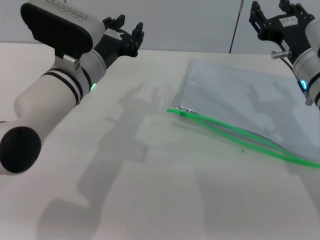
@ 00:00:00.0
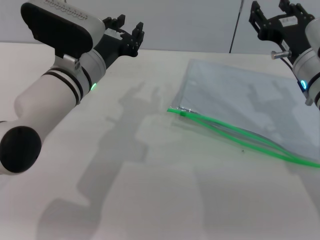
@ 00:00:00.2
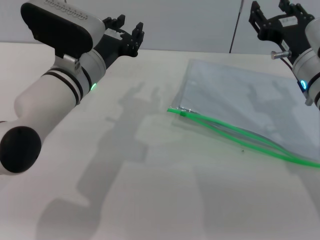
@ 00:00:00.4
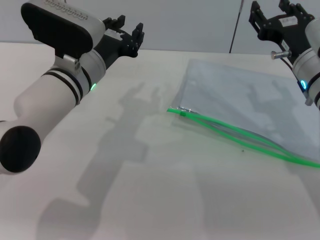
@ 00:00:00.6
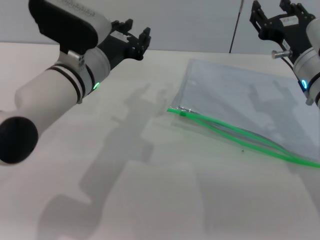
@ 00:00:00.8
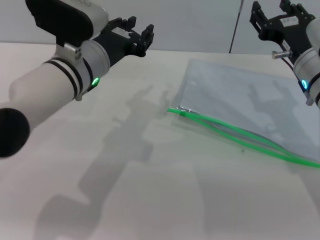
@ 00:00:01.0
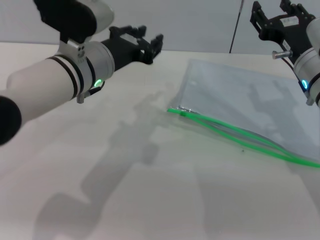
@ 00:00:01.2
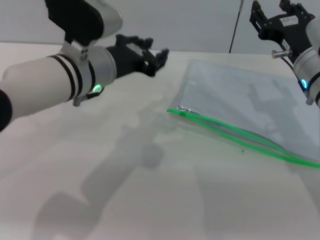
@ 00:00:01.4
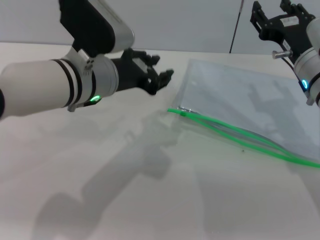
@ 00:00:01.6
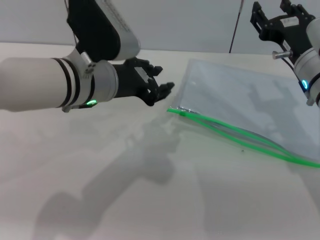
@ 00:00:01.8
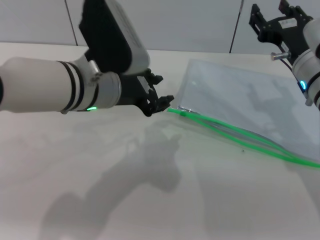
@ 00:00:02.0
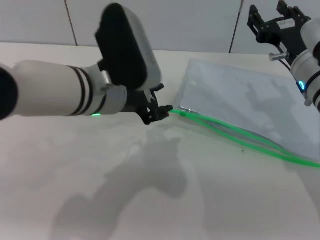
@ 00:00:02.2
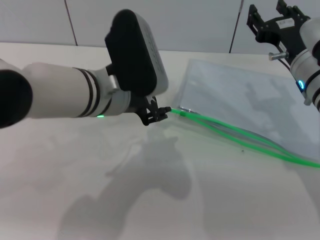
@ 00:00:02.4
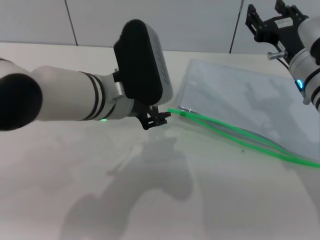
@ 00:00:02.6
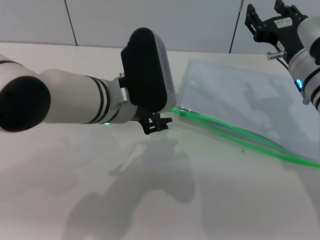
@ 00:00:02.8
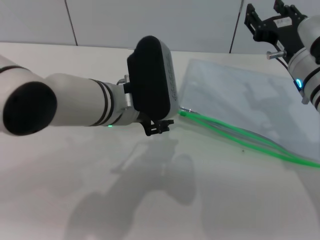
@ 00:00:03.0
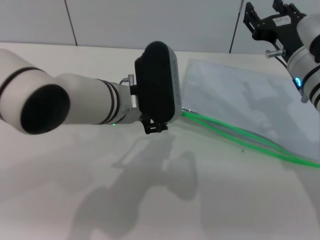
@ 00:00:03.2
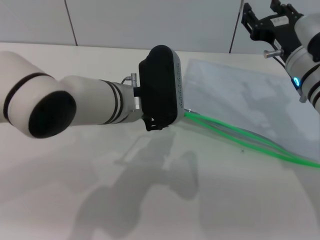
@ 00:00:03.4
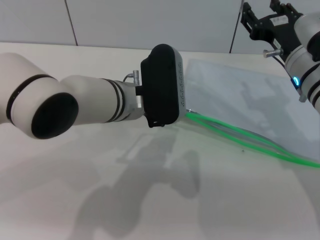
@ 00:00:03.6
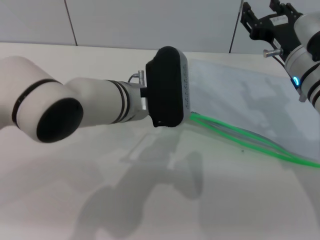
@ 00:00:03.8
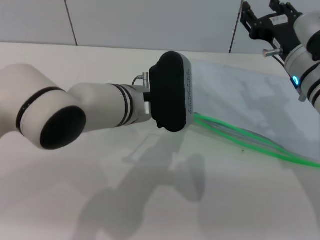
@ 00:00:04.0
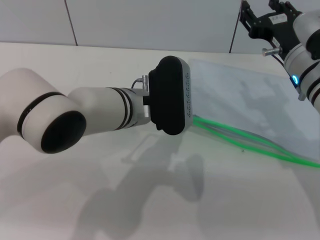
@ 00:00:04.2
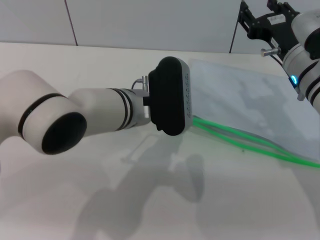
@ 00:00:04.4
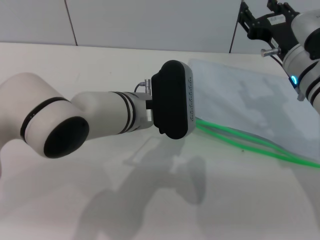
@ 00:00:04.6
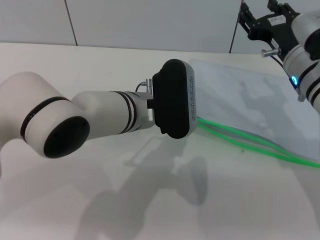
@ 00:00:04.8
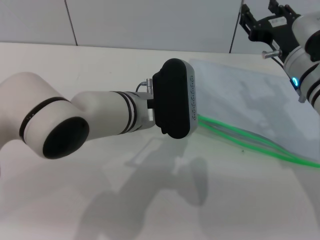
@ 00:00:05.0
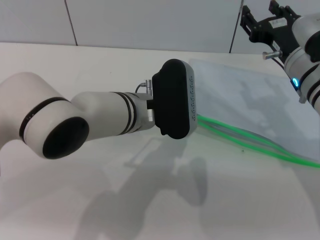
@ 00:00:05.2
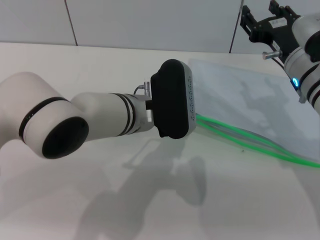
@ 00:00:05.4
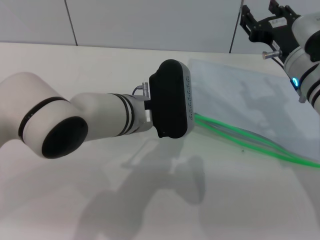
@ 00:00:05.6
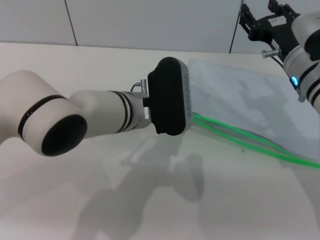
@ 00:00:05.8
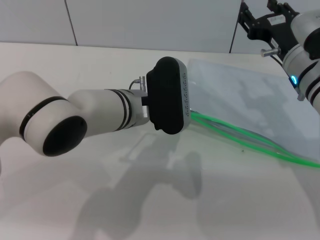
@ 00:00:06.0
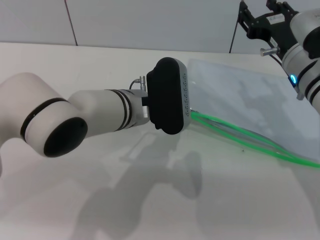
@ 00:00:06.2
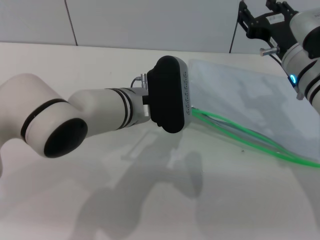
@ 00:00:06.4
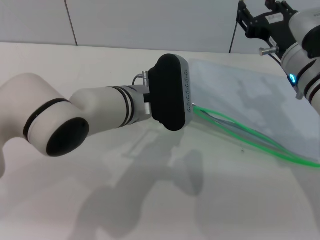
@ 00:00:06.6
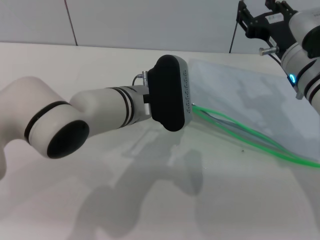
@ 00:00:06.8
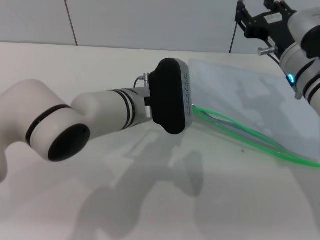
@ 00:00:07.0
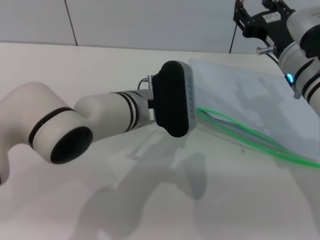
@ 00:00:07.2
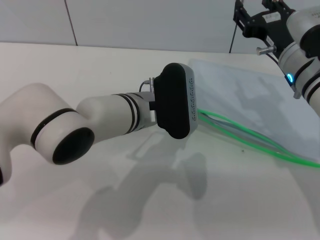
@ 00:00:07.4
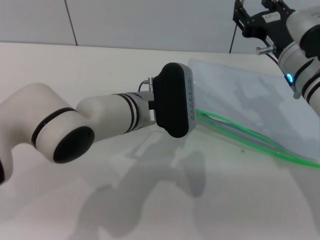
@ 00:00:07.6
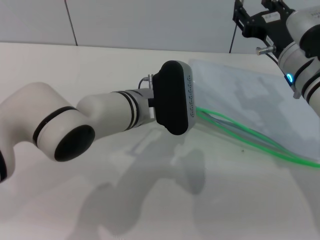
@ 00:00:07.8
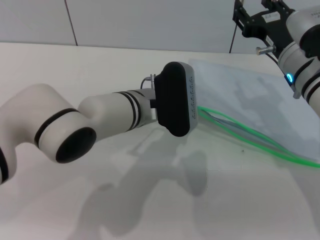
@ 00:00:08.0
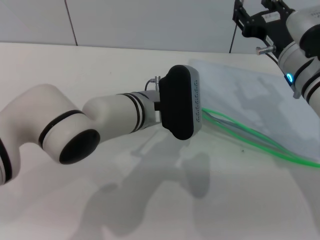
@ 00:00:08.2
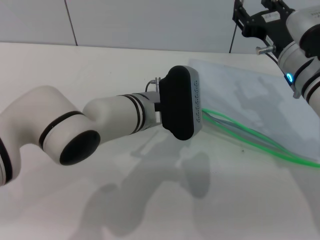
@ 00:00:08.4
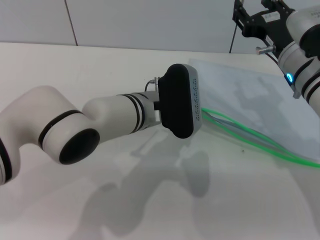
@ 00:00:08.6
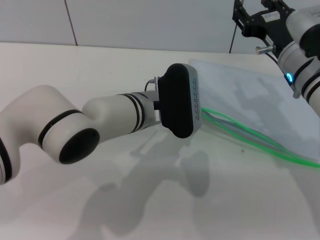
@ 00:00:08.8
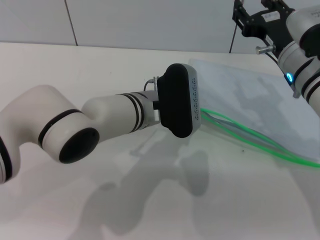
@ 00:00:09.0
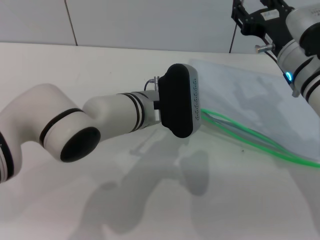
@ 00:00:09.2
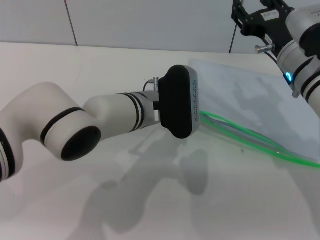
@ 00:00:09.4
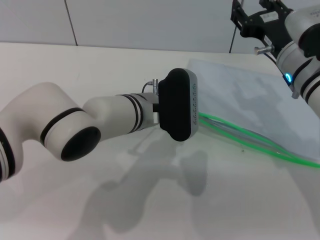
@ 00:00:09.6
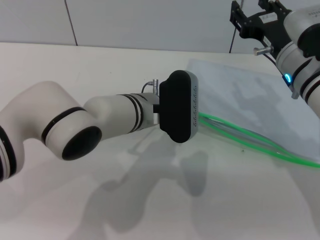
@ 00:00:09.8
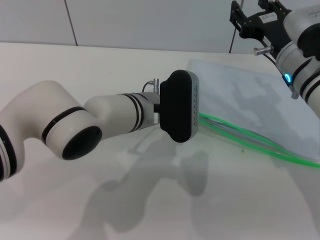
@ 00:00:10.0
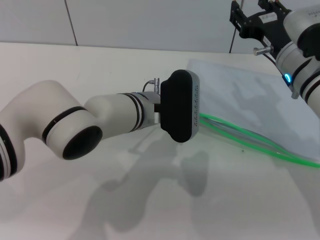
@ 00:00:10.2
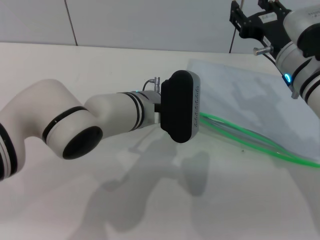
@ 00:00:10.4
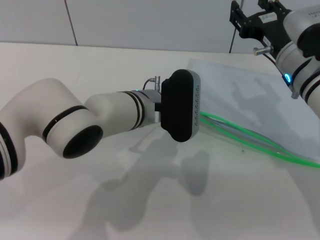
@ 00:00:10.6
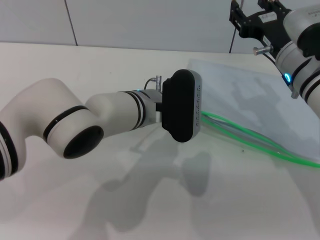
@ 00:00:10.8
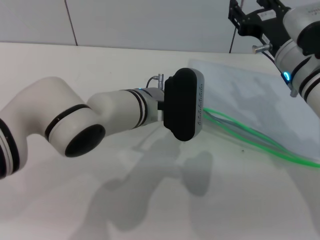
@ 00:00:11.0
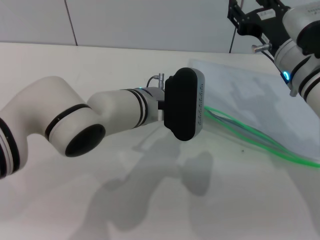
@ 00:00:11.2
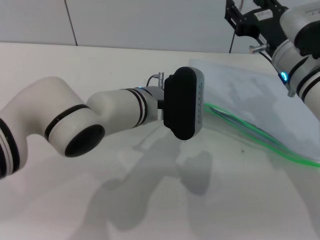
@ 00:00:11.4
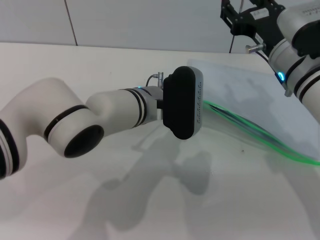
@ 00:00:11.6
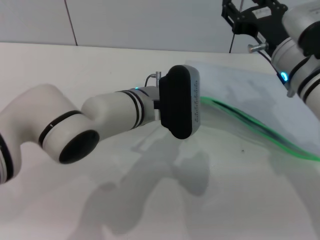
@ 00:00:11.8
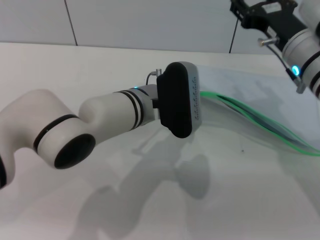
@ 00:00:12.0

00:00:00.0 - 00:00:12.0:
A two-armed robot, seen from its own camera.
00:00:03.0 - 00:00:04.4: There are only small adjustments of the grippers.
00:00:04.4 - 00:00:06.0: The two grippers keep their place.
00:00:06.0 - 00:00:07.6: There are only small adjustments of the grippers.
00:00:07.6 - 00:00:09.0: Both grippers stay about where they are.
00:00:09.0 - 00:00:10.4: There are only small adjustments of the grippers.
00:00:10.4 - 00:00:12.0: The left gripper closes its fingers.

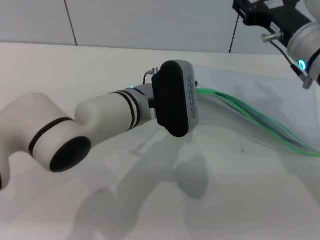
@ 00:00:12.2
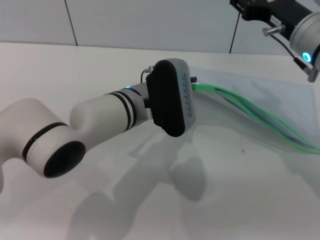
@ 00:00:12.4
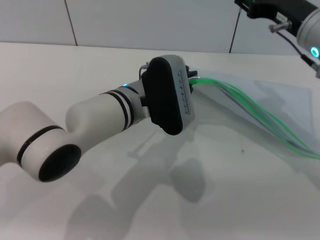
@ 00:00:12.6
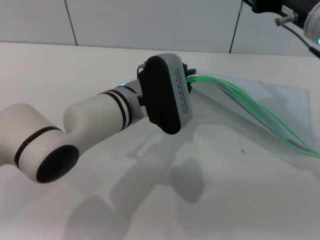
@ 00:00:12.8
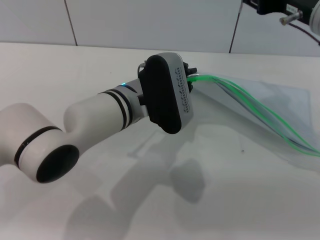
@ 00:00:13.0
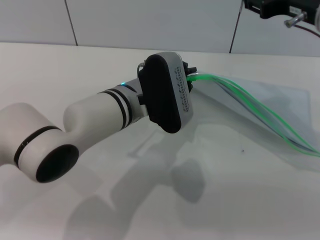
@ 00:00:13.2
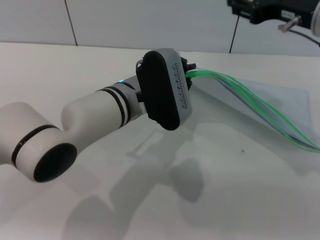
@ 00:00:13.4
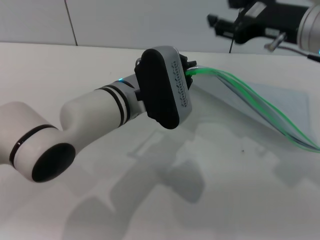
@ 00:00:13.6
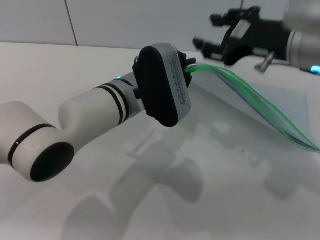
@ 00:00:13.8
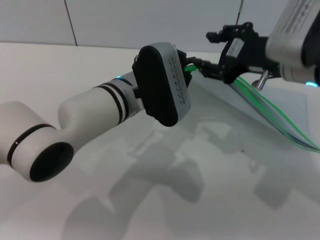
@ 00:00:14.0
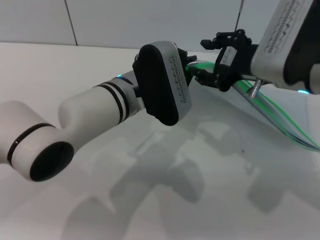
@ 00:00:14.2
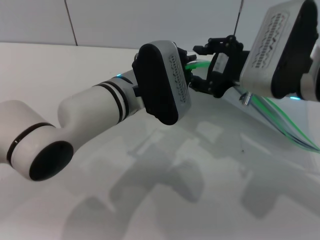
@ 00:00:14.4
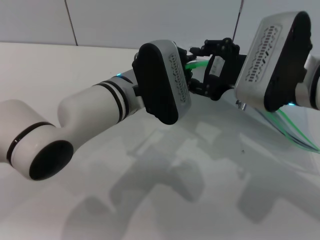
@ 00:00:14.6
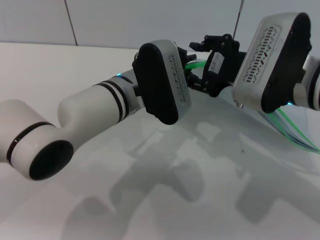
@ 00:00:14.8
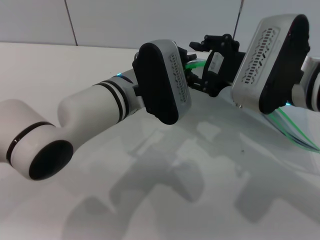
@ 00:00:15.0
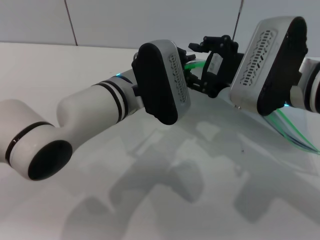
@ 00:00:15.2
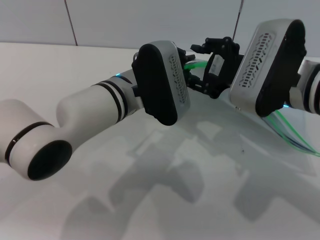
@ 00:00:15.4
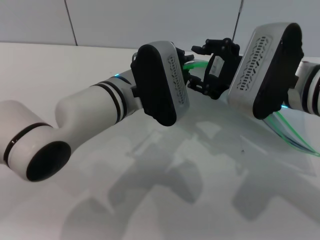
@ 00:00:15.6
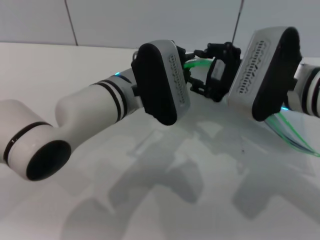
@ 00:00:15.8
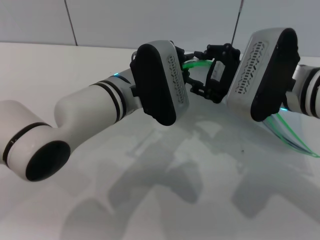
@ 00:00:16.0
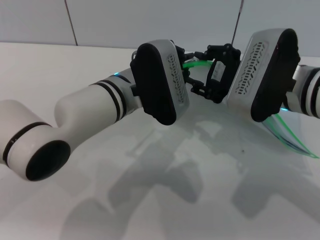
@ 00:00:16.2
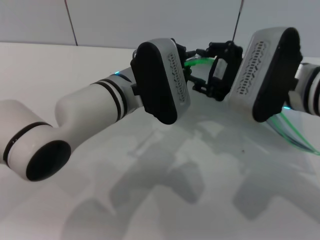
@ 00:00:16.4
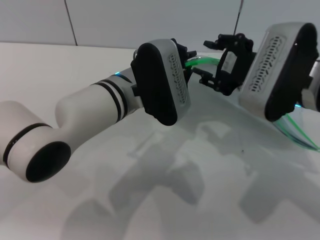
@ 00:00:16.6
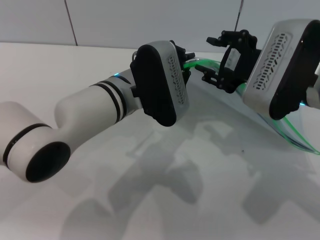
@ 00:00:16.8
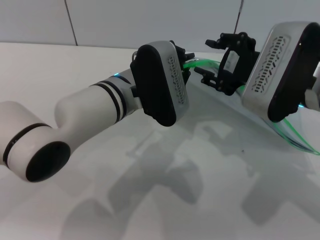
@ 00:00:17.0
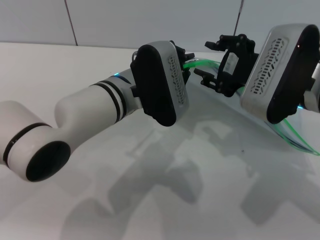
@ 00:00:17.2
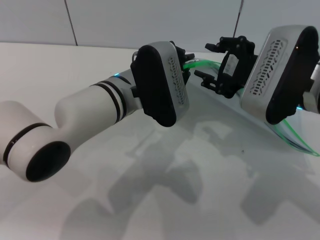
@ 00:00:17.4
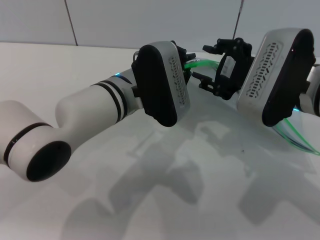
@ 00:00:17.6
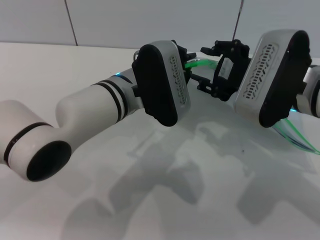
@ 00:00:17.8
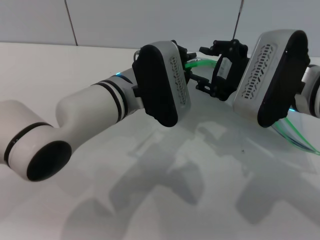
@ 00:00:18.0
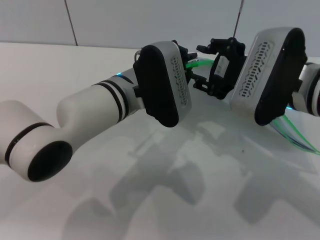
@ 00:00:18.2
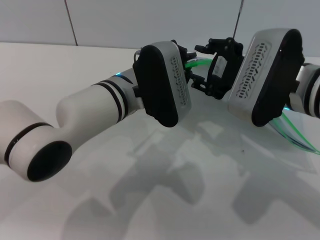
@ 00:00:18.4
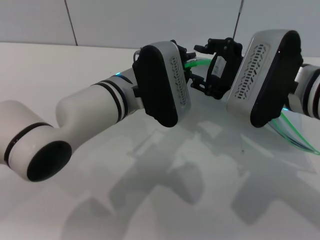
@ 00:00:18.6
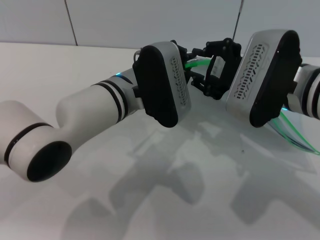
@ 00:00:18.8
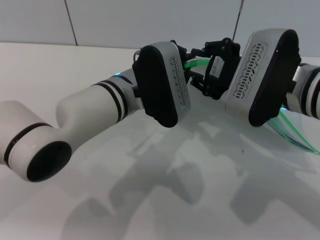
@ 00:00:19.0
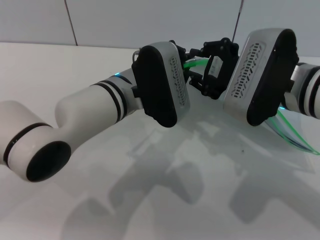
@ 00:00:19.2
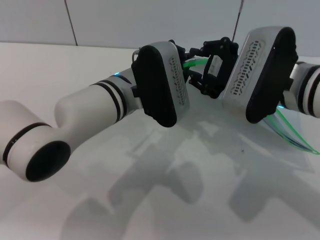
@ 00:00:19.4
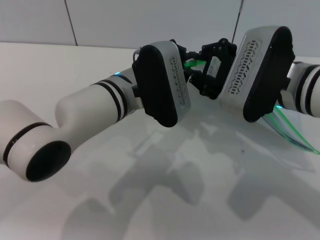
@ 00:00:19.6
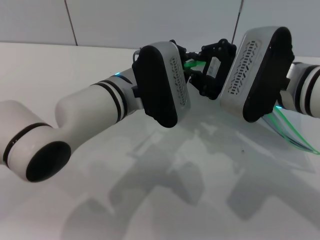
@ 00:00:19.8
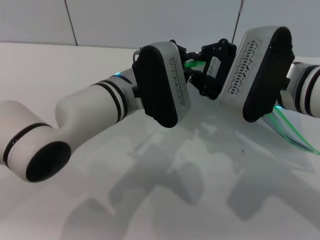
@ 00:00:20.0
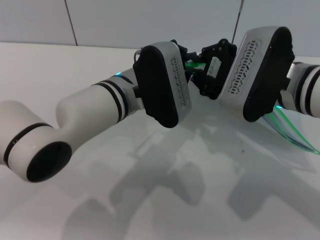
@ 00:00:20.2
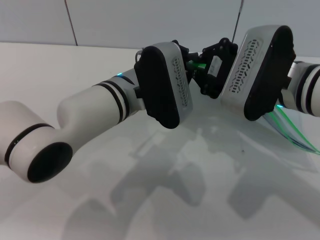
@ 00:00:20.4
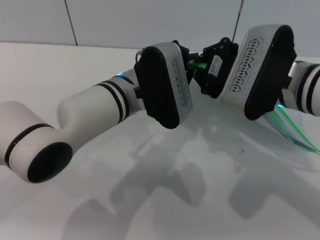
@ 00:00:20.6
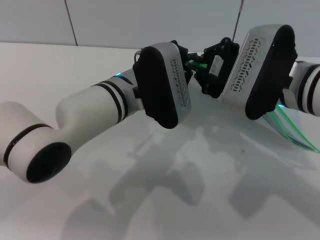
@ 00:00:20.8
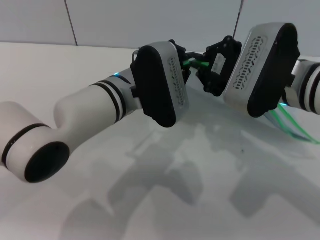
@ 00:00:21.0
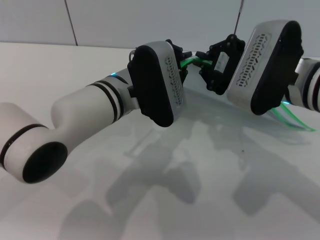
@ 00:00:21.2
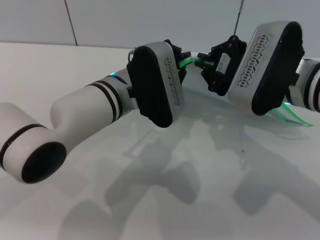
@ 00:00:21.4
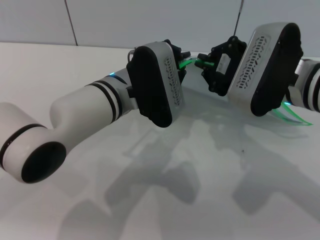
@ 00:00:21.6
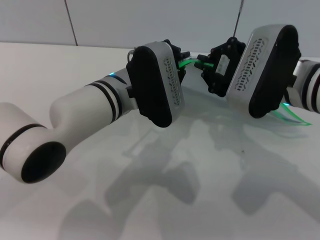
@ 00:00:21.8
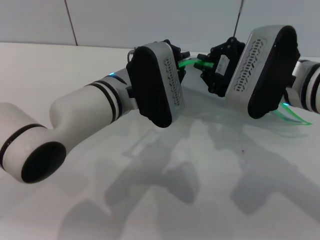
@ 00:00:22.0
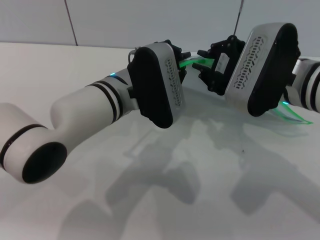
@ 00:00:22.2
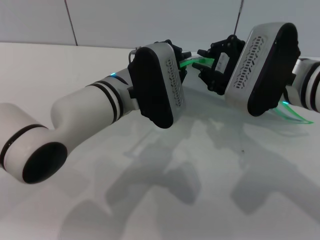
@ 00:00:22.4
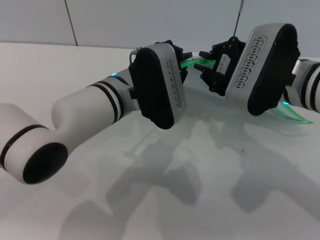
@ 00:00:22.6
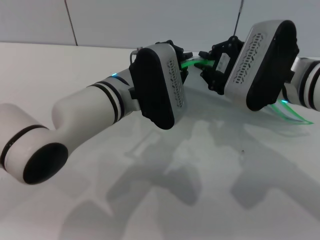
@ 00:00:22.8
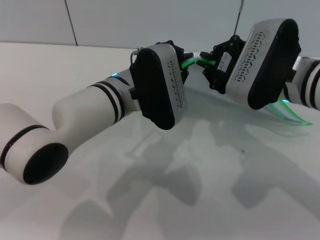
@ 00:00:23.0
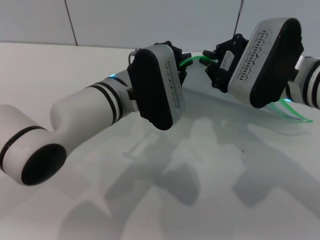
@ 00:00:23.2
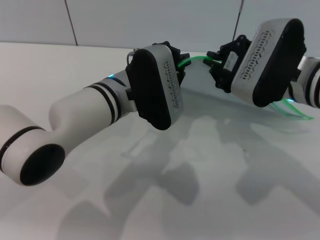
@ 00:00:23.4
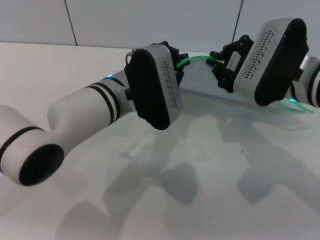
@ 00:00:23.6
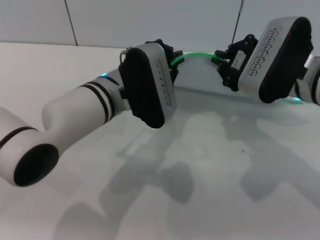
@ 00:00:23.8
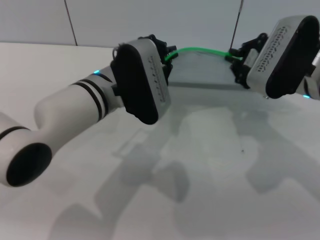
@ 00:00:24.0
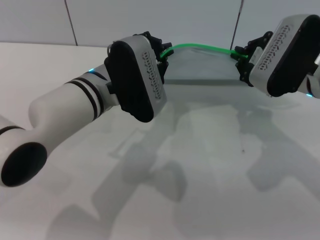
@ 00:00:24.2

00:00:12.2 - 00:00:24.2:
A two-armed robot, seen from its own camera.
00:00:12.2 - 00:00:13.8: The right gripper moves roughly 5 cm.
00:00:13.8 - 00:00:15.2: The right gripper shifts by about 5 cm.
00:00:15.2 - 00:00:16.6: The grippers move only a little.
00:00:16.6 - 00:00:18.2: Both grippers stay about where they are.
00:00:18.2 - 00:00:21.2: Neither gripper changes place.
00:00:21.2 - 00:00:22.6: Both grippers stay about where they are.
